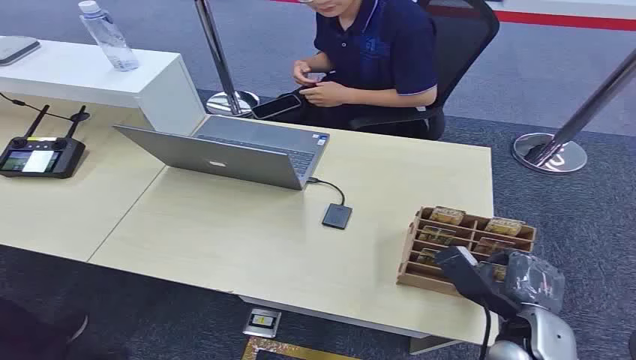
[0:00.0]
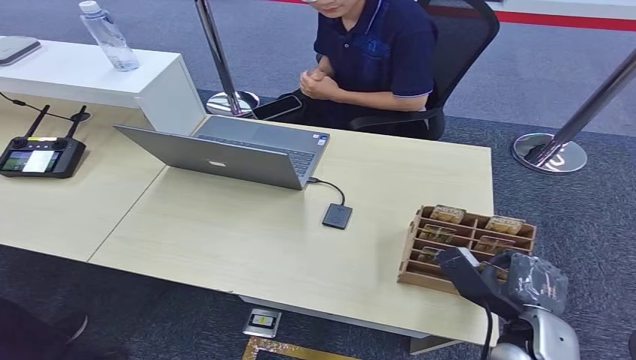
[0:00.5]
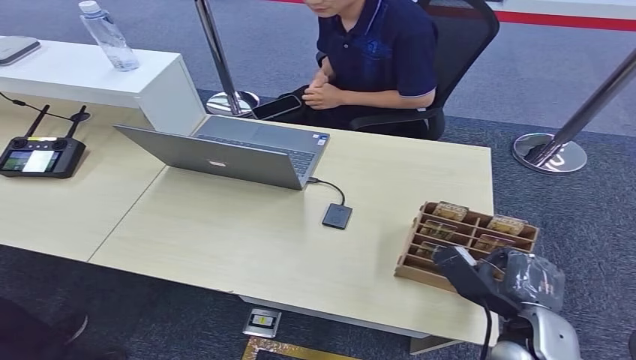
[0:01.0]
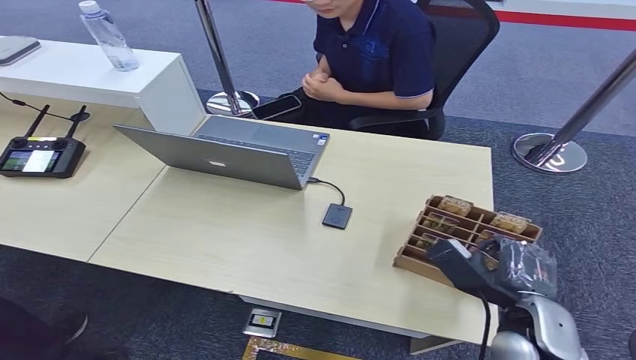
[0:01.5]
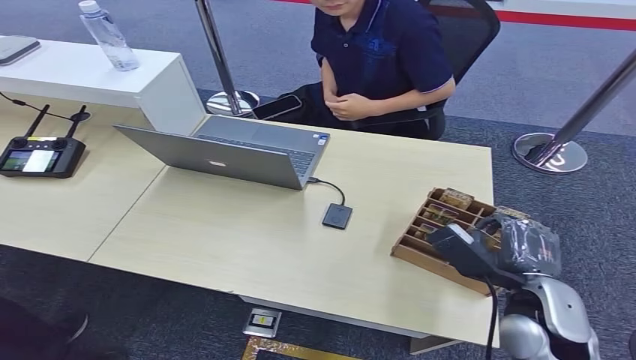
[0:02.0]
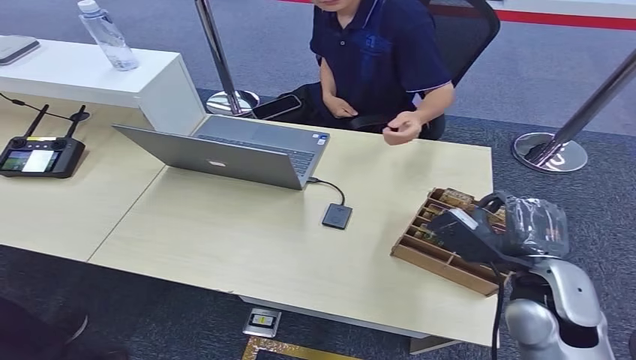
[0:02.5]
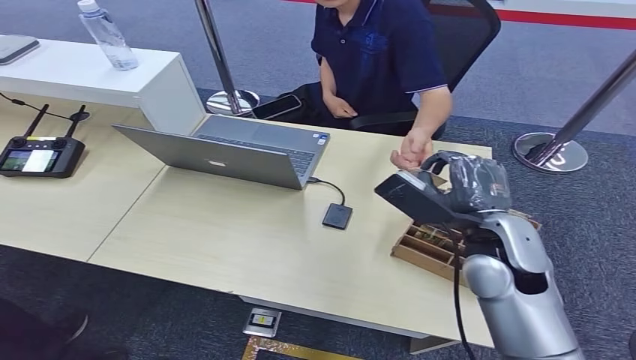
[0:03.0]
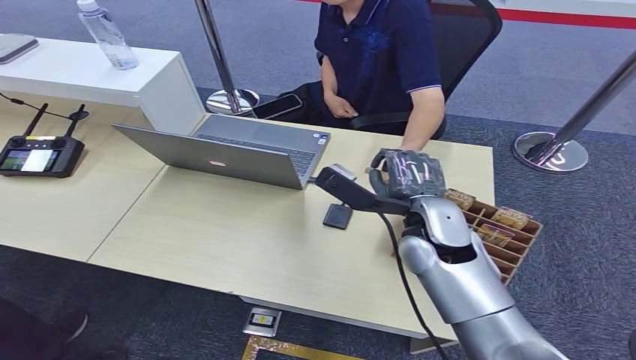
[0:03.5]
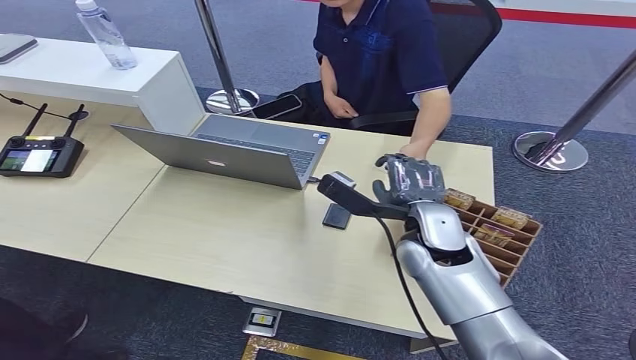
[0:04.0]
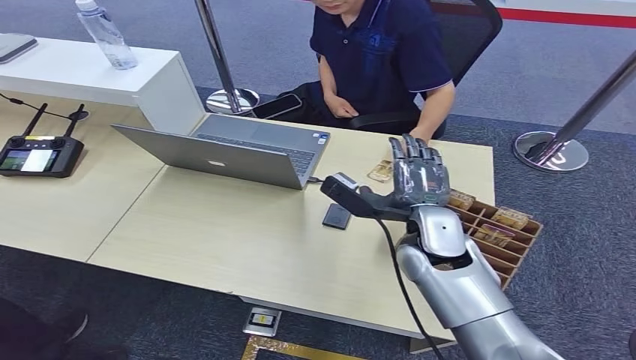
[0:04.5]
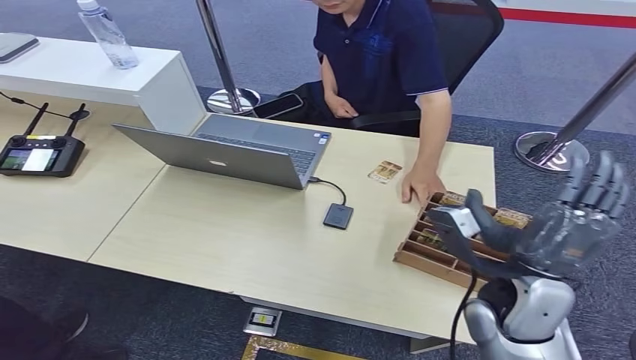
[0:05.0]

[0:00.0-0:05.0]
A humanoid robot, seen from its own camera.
Task of the whole recording: Pick up the card and hand it over to the target person.
Step, 0:00.0 to 0:01.5: Pick up the key card from the card box.
Step, 0:02.0 to 0:05.0: Hand the key card to the target.
0:02.5 to 0:05.0: The right hand moves backward and to the right, some 10 cm.
